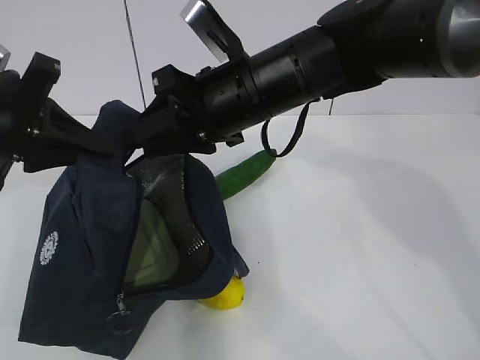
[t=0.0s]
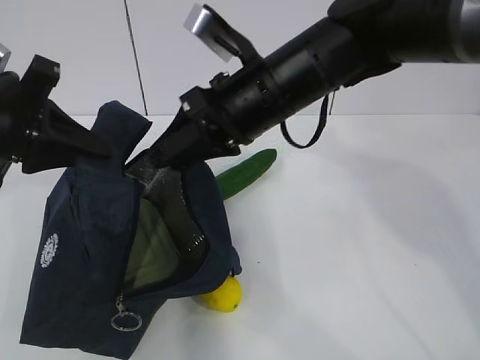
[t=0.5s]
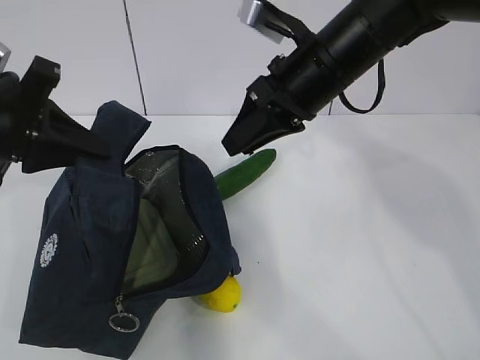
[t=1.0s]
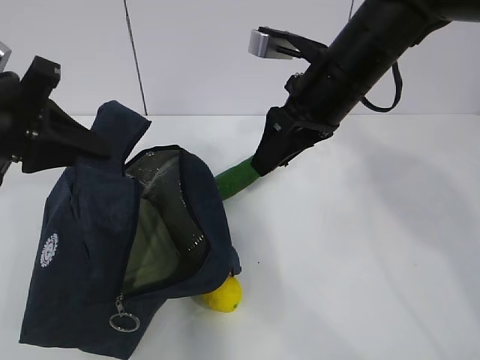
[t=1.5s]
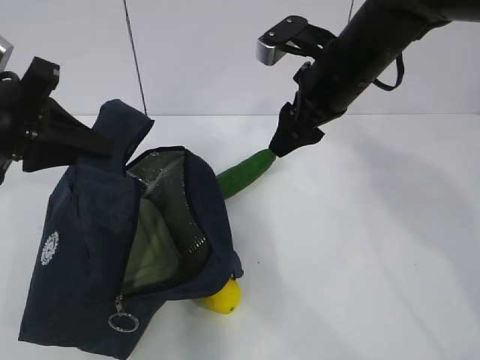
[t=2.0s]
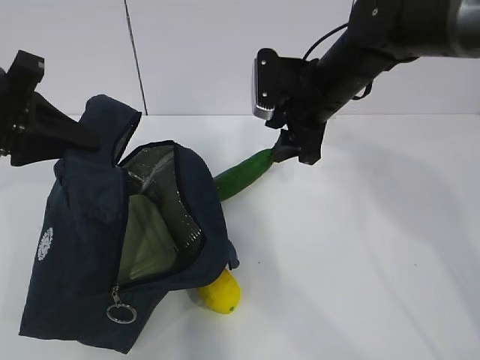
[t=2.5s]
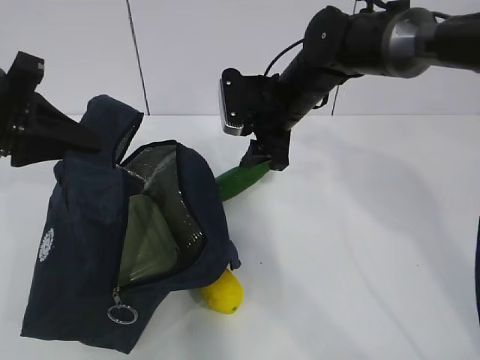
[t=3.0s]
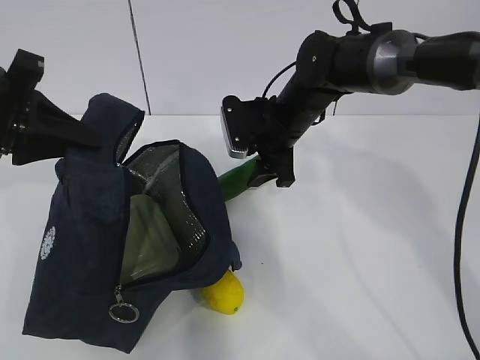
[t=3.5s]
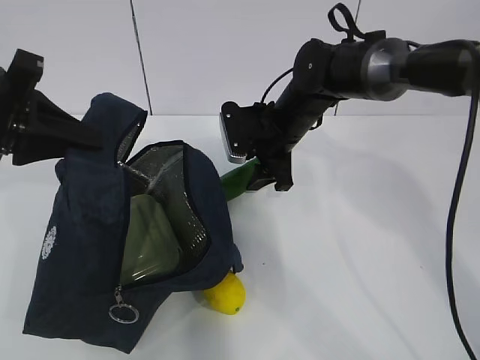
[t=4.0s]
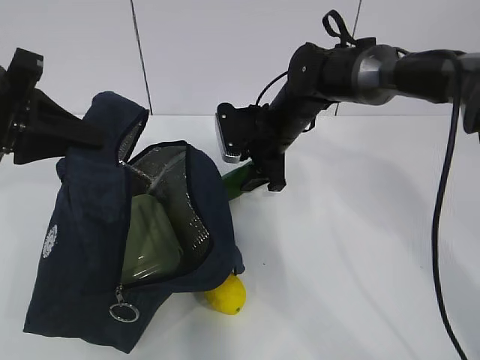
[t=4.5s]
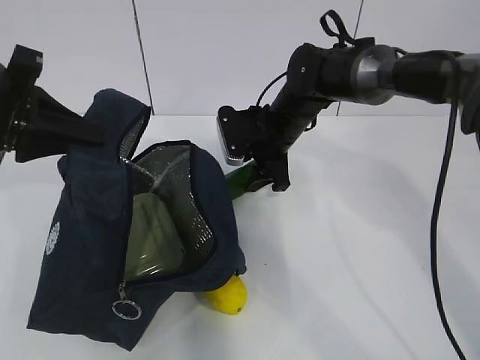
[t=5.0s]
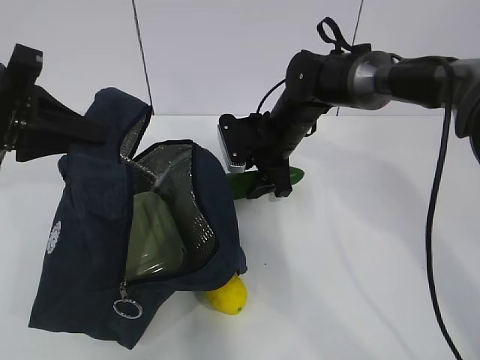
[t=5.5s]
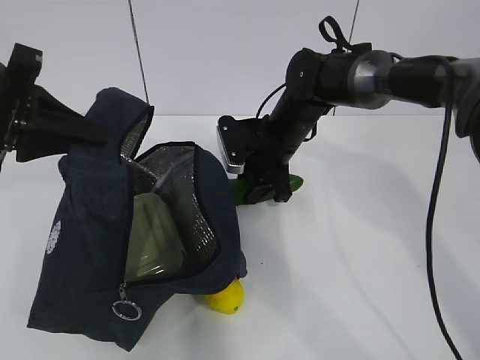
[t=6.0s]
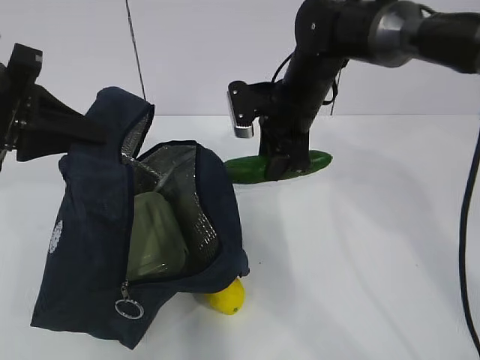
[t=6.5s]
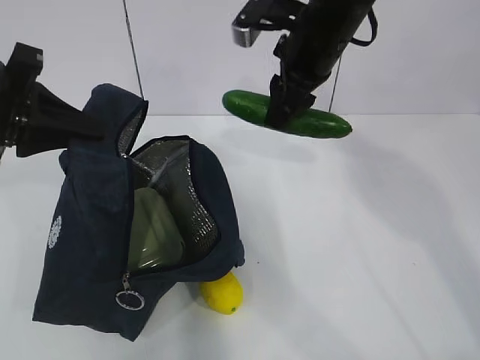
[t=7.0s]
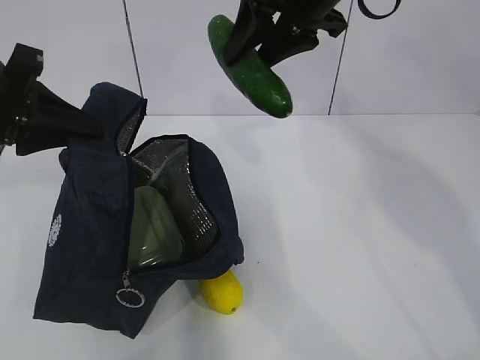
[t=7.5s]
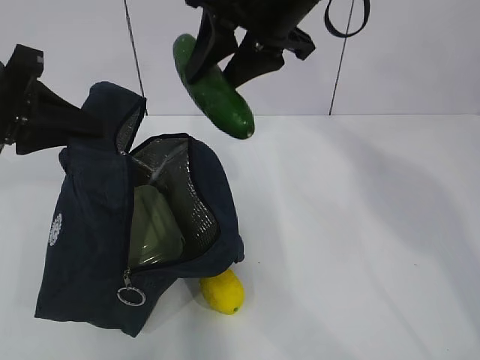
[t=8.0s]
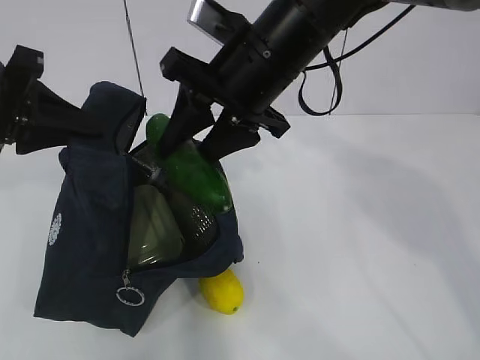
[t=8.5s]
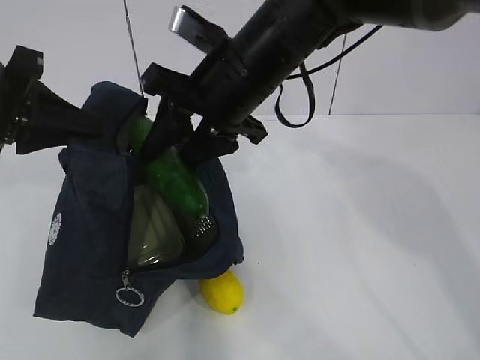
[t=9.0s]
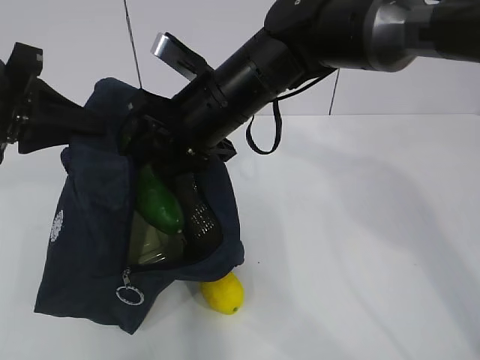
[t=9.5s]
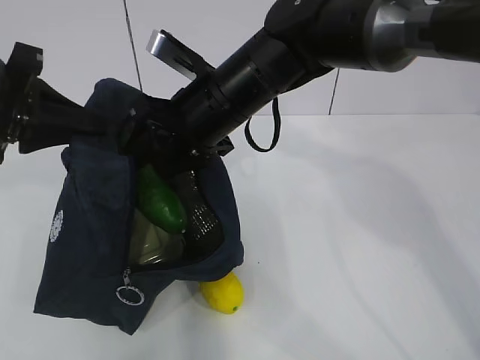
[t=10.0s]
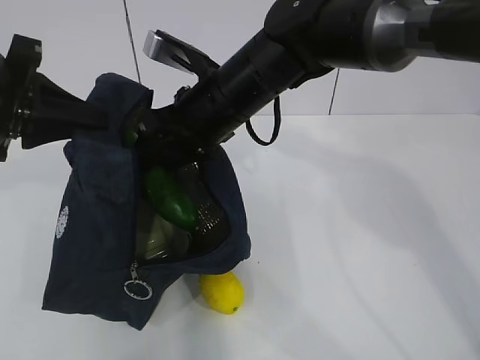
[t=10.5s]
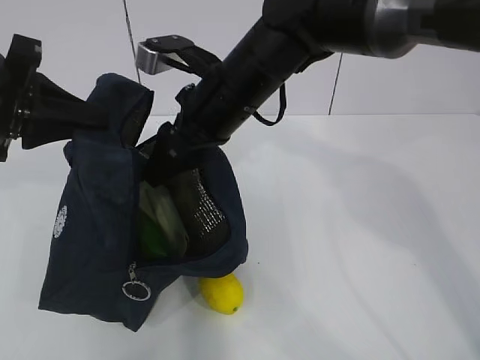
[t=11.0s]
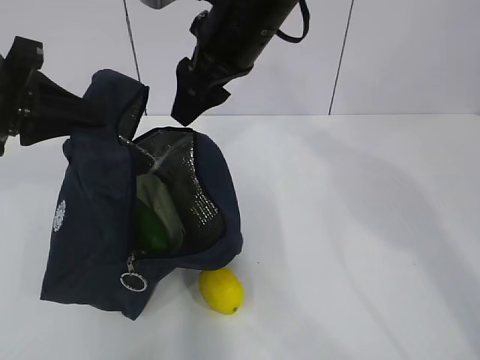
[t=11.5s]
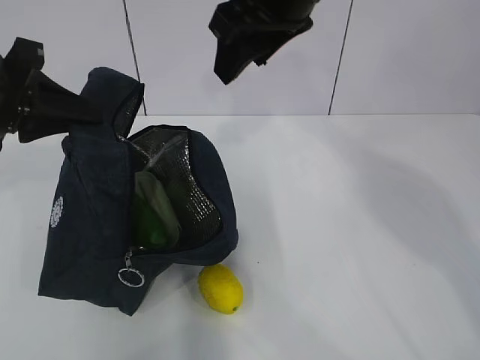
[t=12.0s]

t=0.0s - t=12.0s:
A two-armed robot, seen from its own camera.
Step, t=0.5s - t=4.0s: Place it into the bag with your right hand.
Step, t=4.5s - t=9.0s: Grab the lemon with your right hand.
t=0.0s - t=2.0s: The right gripper moves to the right and forward, roughly 10 cm, and opens its fingers.
t=2.0s - t=4.0s: The right gripper travels downward and forward by roughly 10 cm.
t=4.0s - t=6.0s: The grippers move only a little.
t=6.0s - t=8.0s: The right gripper heads upward and backward, covering some 25 cm.
t=8.0s - t=10.0s: The right gripper is displaced downward and to the left by some 15 cm.
t=10.0s - t=12.0s: The right gripper heads upward and to the right, covering roughly 15 cm.

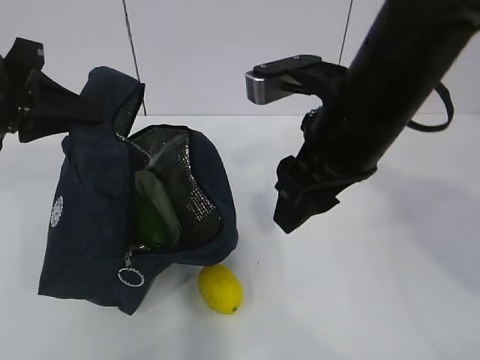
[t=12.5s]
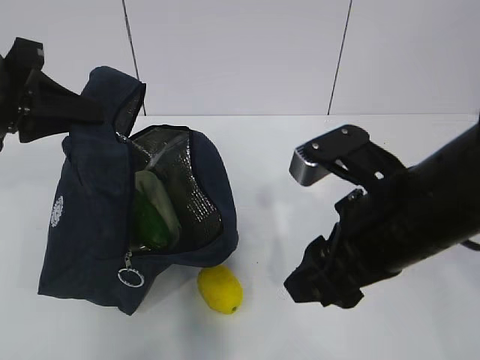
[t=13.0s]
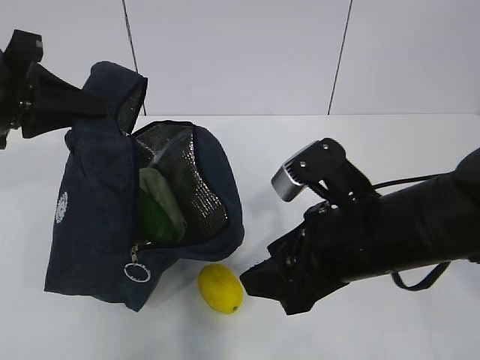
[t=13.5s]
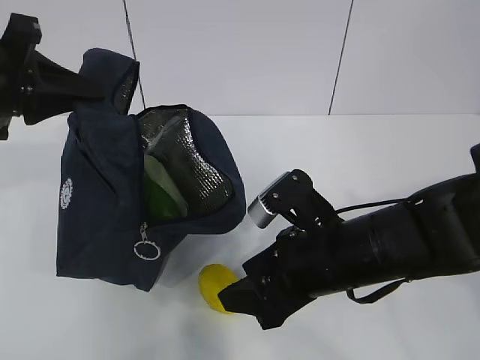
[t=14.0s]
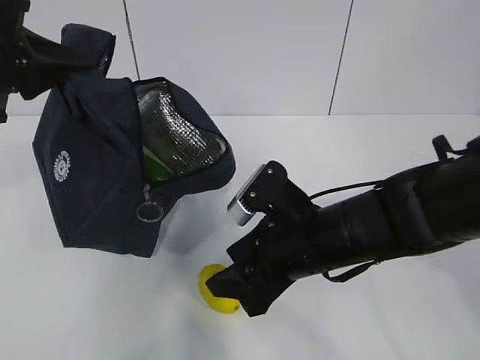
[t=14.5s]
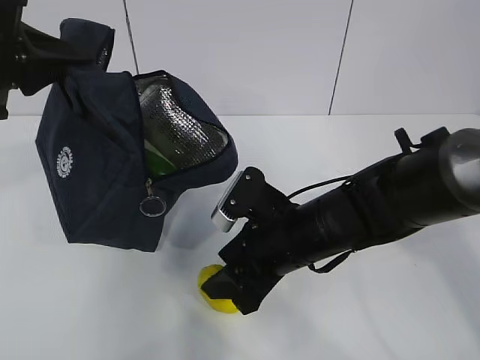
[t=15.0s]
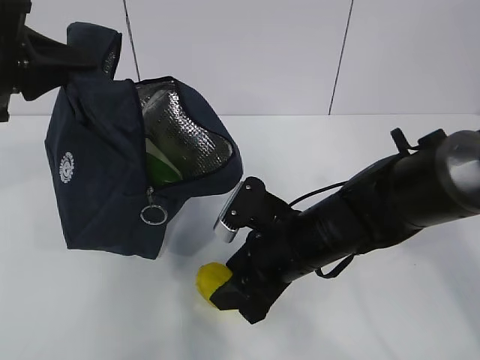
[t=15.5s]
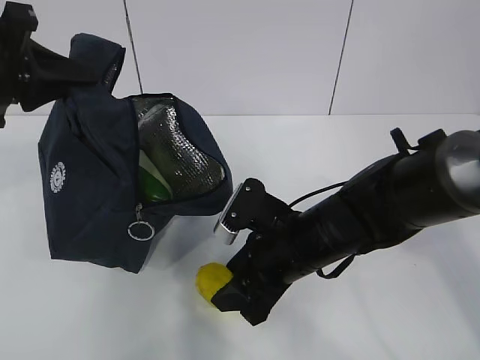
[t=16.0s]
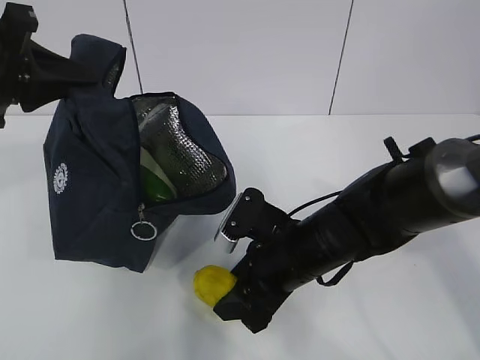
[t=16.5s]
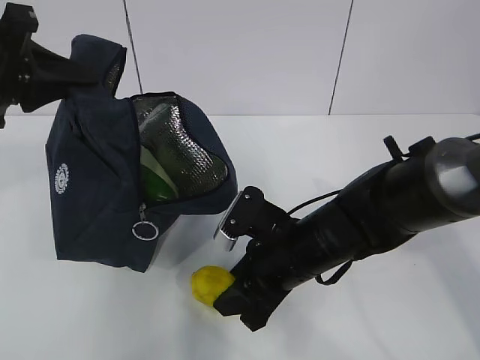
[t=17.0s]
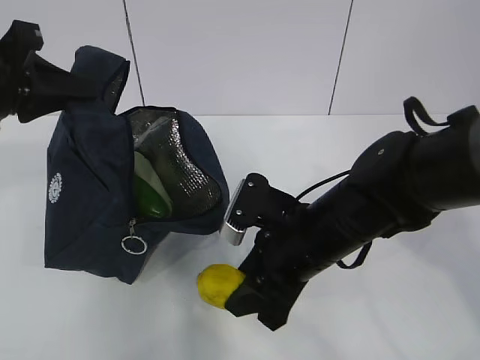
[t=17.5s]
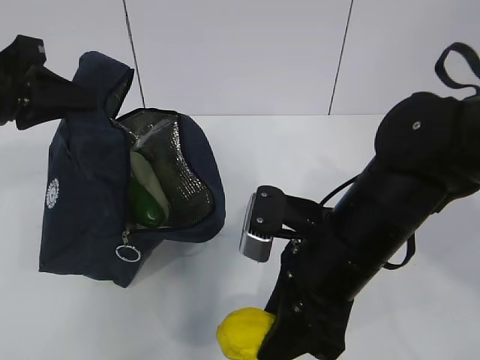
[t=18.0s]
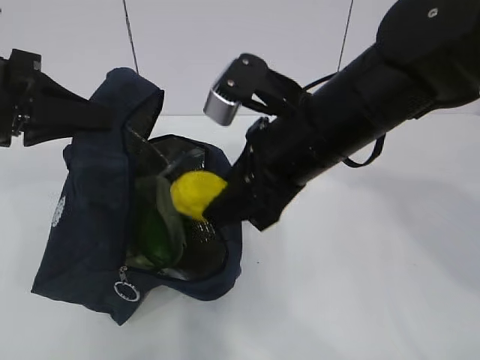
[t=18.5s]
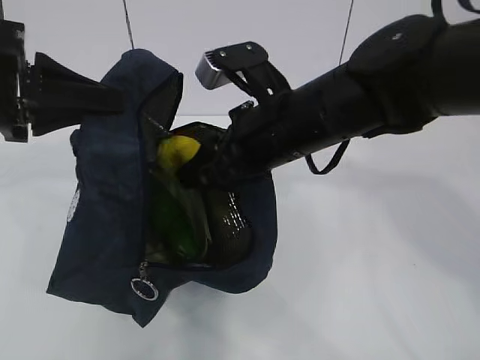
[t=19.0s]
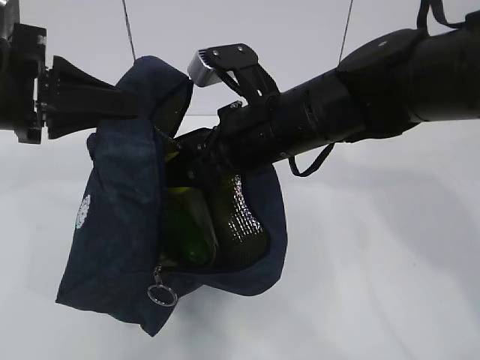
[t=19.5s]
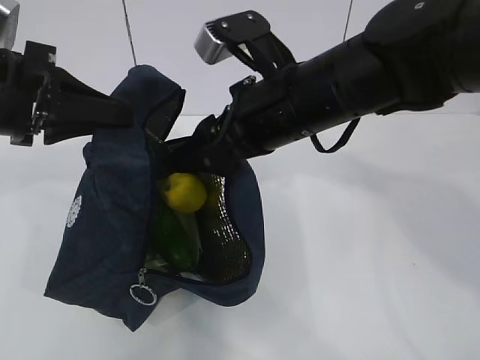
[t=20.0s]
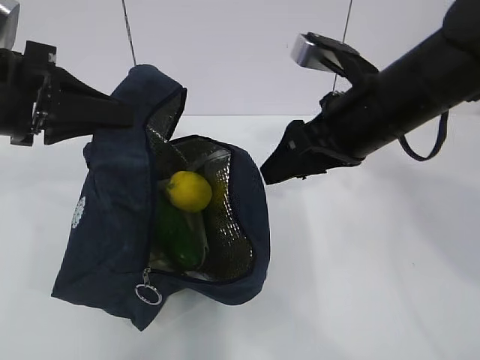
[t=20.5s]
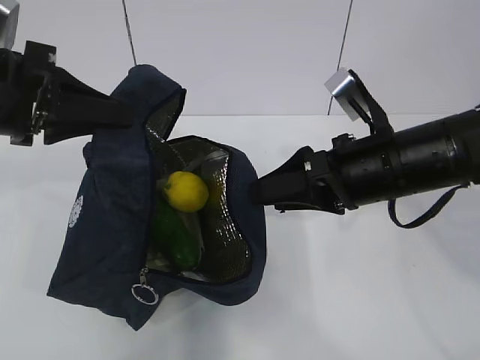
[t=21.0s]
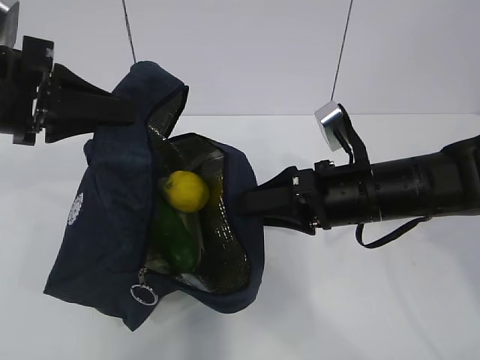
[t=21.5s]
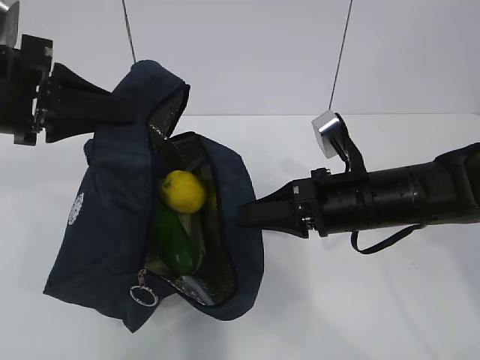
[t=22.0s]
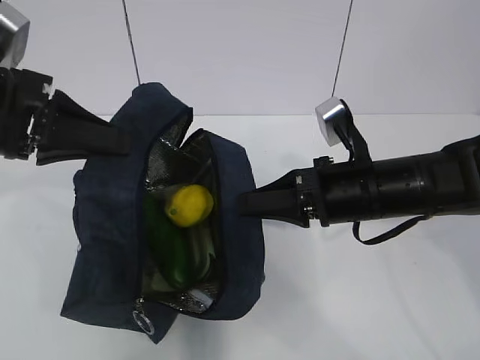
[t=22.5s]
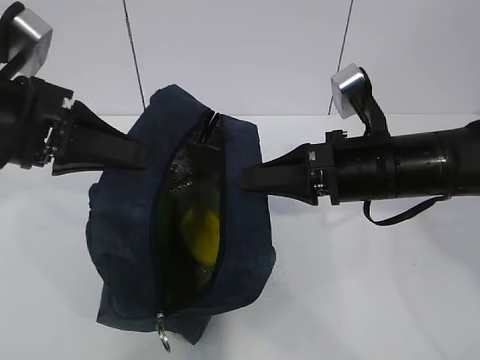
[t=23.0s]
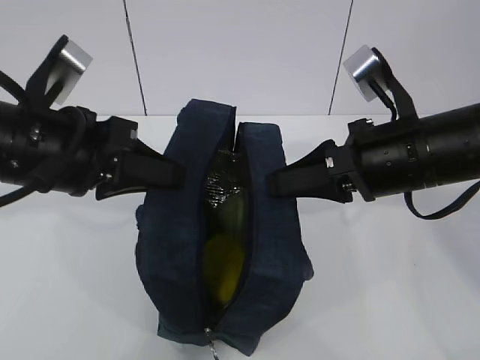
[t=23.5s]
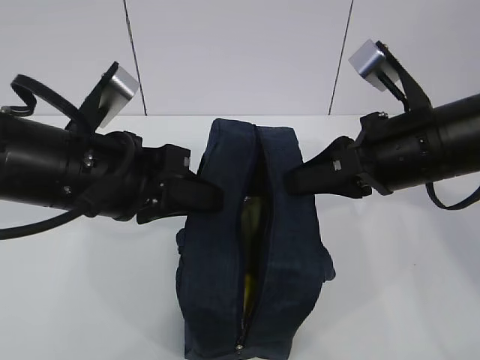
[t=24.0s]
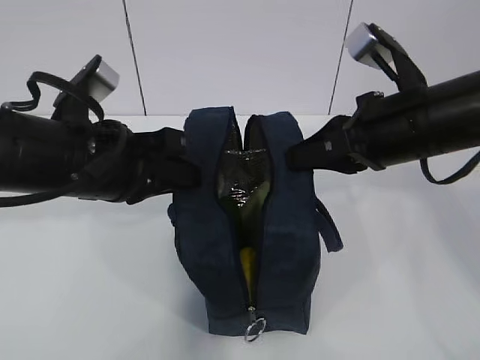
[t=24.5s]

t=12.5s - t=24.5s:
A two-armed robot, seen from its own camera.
Step, t=13.5s - t=18.0s: Move the lunch bag to the right.
t=12.5s - t=14.5s: The right gripper heads downward, covering approximately 15 cm.
t=14.5s - t=16.5s: There are only small adjustments of the grippers.
t=16.5s - t=18.5s: The right gripper heads upward, covering approximately 15 cm.
t=18.5s - t=20.5s: The right gripper heads to the right, covering about 5 cm.
t=20.5s - t=22.5s: The right gripper heads downward, covering roughly 10 cm, and closes up.
t=22.5s - t=24.5s: The right gripper goes some 10 cm upward. The left gripper shifts some 10 cm to the right.

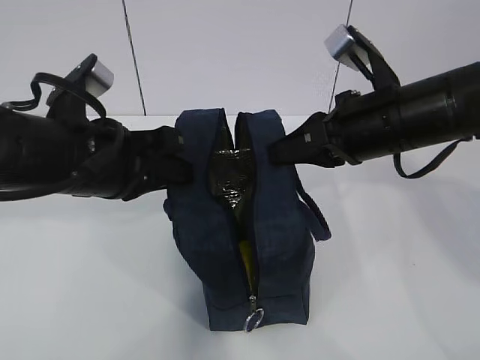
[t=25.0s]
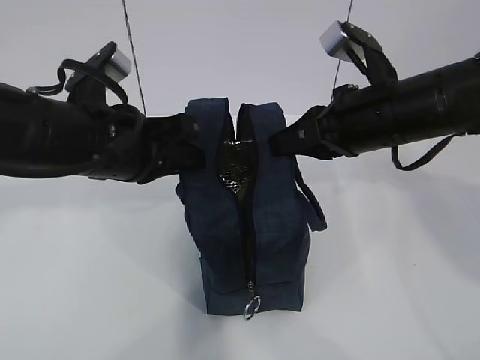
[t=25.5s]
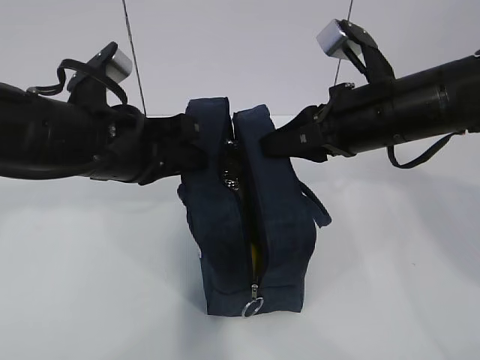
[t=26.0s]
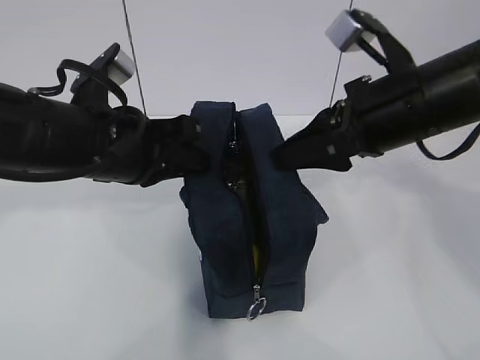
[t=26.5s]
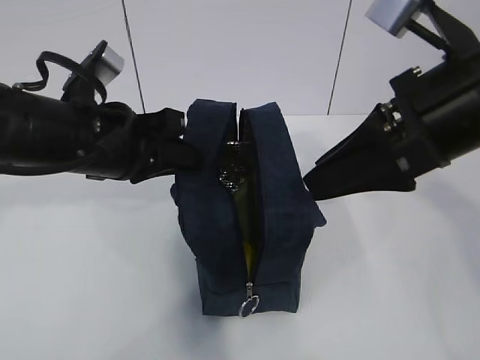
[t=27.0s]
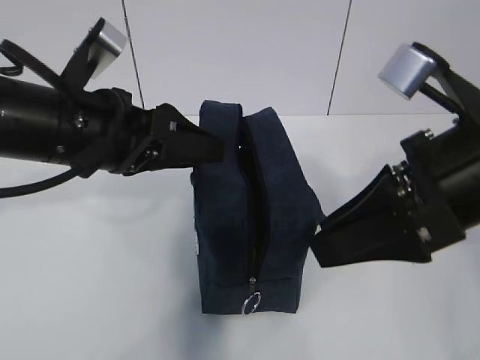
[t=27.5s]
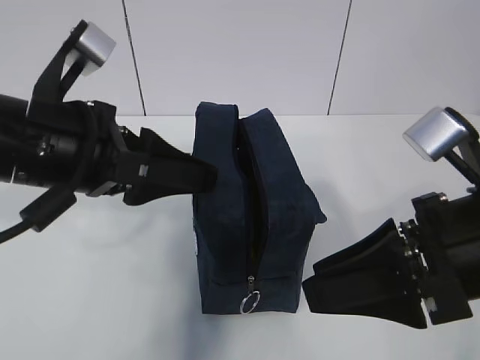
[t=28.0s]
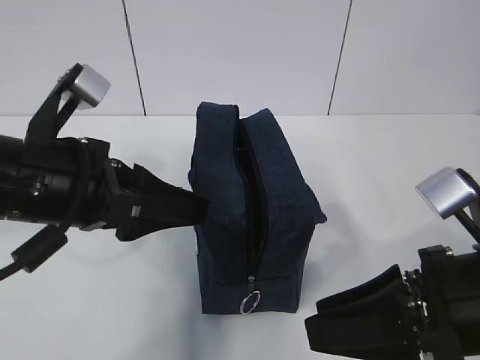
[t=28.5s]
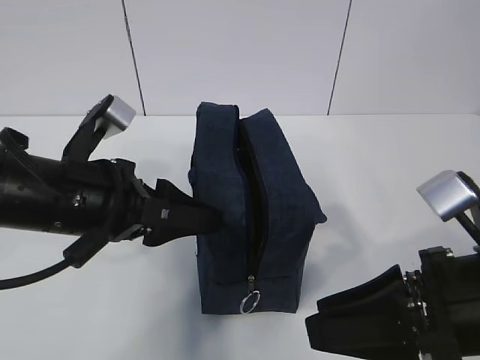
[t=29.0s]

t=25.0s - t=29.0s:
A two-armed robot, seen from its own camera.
t=25.0s - t=27.0s: The right gripper moves backward and upward, some 10 cm, and opens up.
t=27.0s - t=29.0s: The right gripper shifts roughly 15 cm downward and backward. The left gripper opens up.
